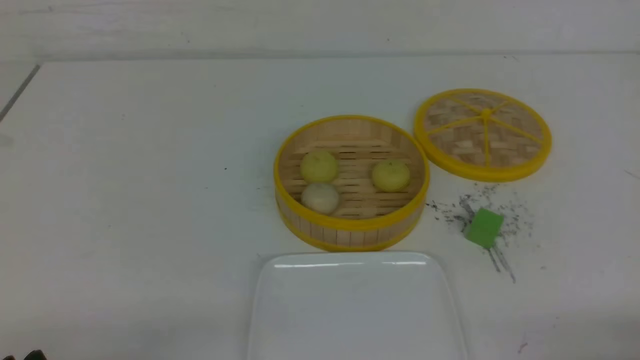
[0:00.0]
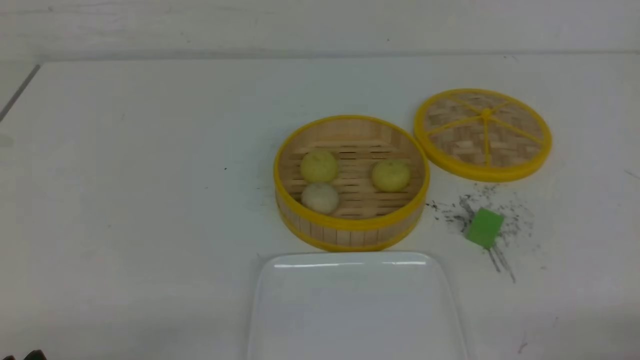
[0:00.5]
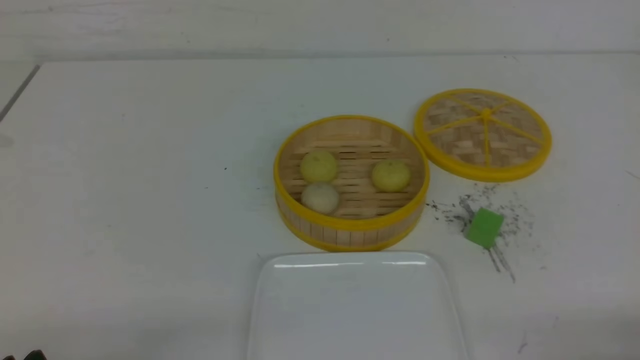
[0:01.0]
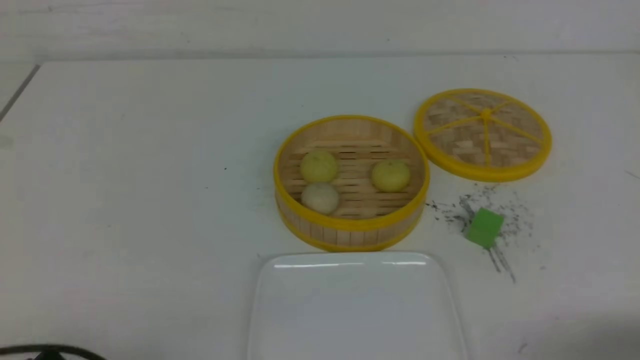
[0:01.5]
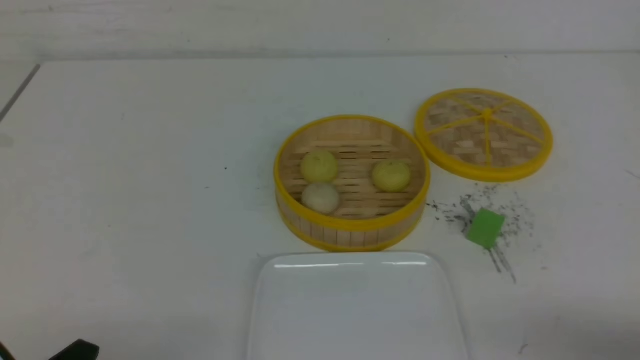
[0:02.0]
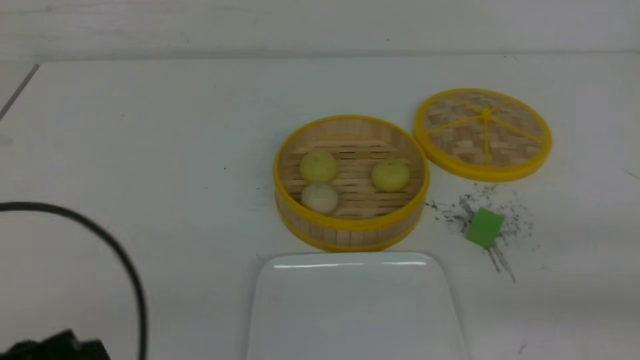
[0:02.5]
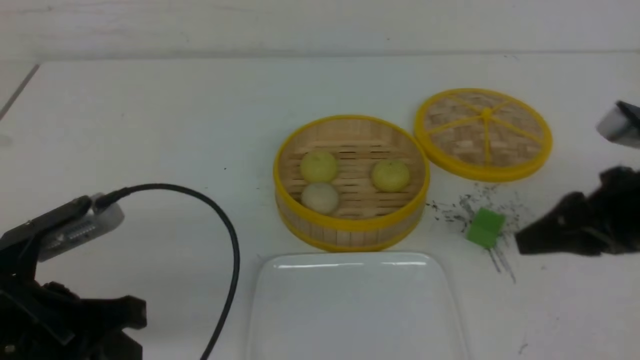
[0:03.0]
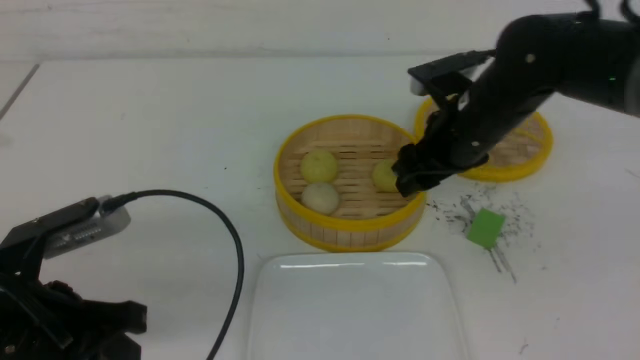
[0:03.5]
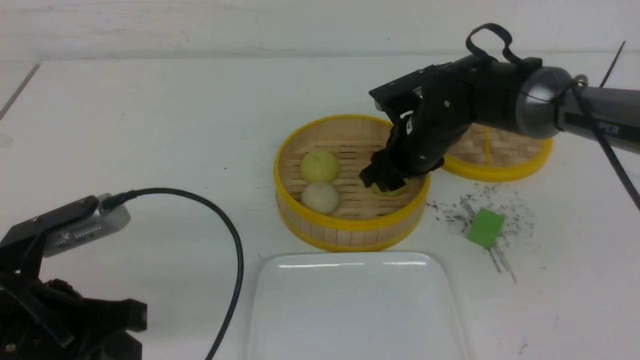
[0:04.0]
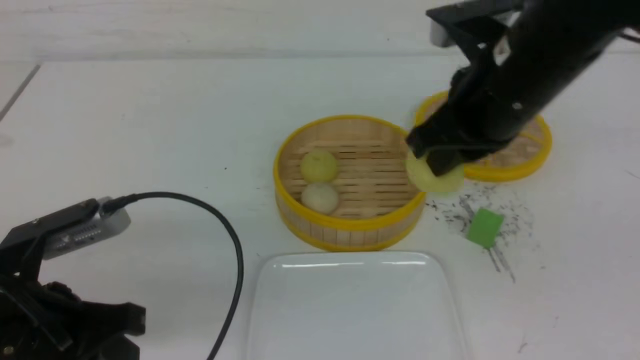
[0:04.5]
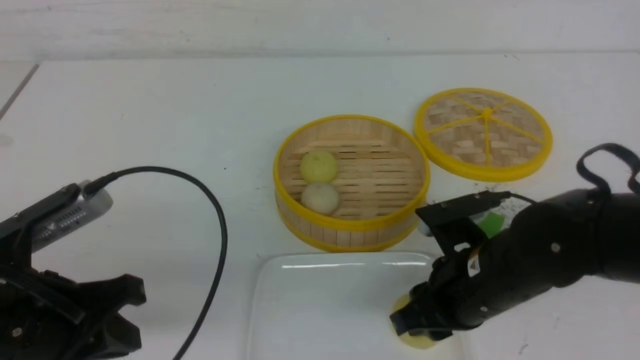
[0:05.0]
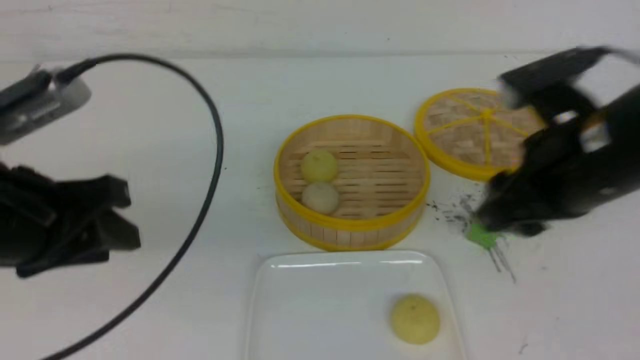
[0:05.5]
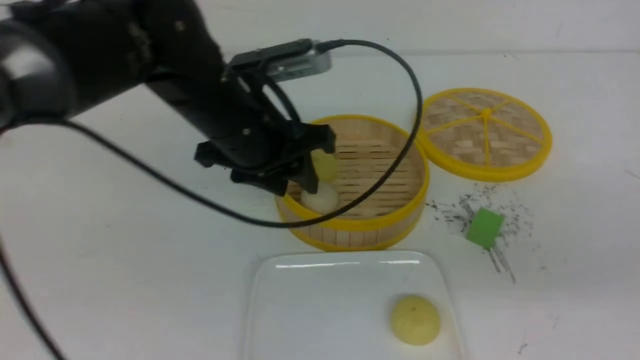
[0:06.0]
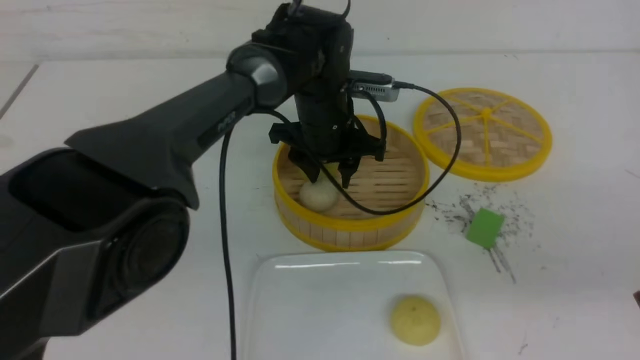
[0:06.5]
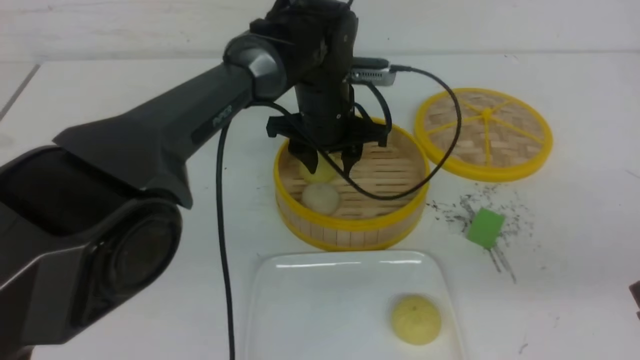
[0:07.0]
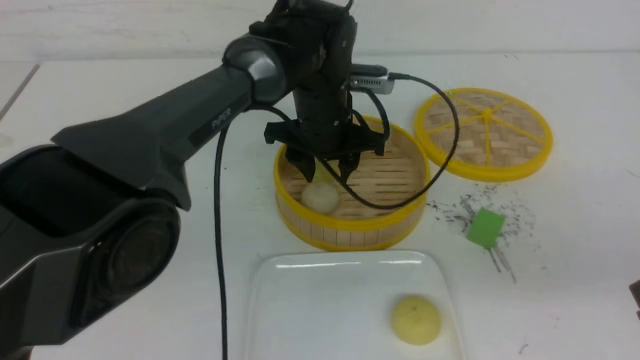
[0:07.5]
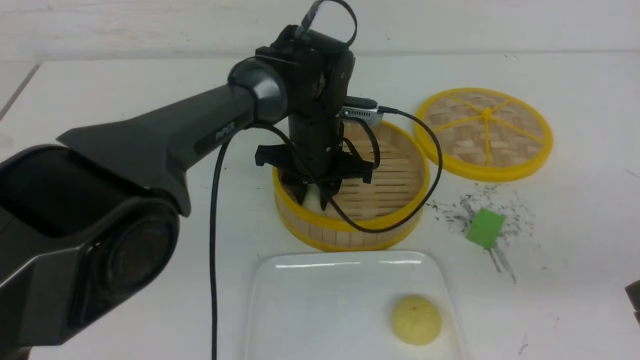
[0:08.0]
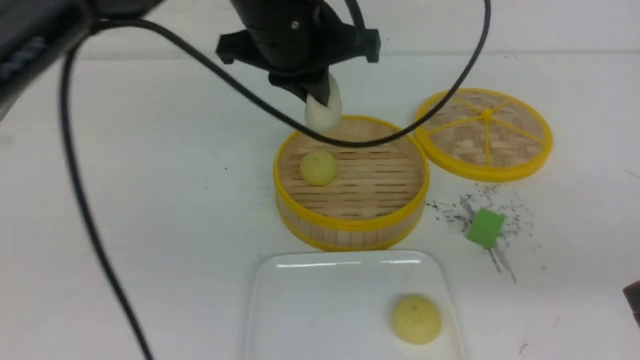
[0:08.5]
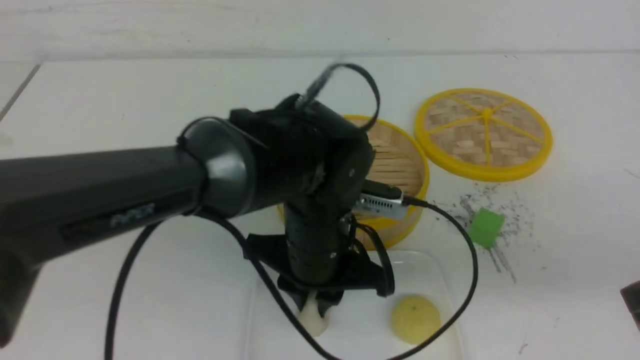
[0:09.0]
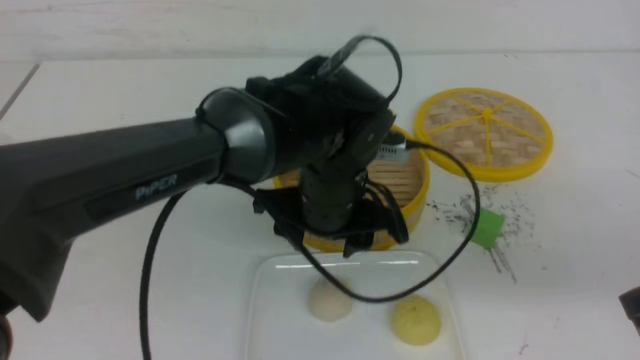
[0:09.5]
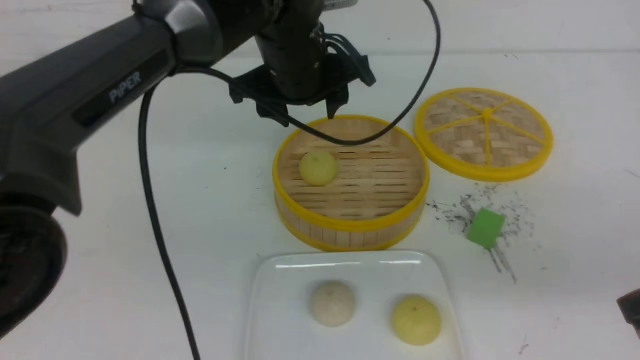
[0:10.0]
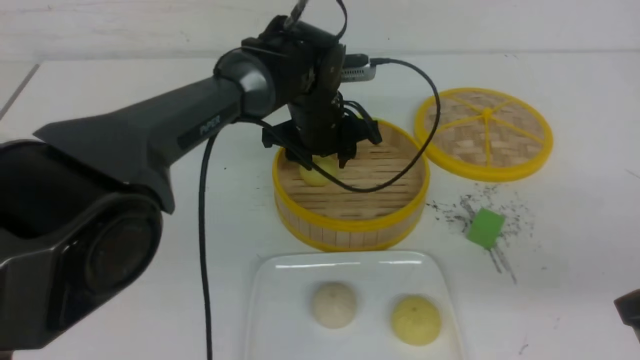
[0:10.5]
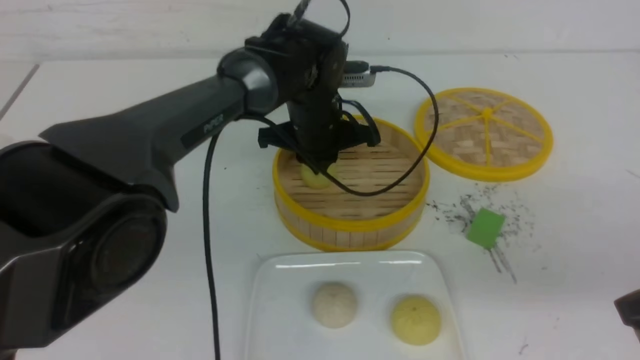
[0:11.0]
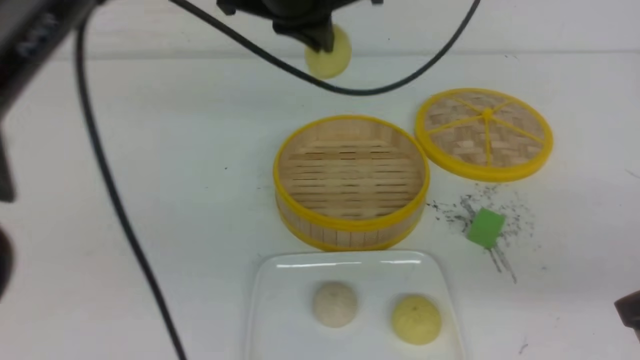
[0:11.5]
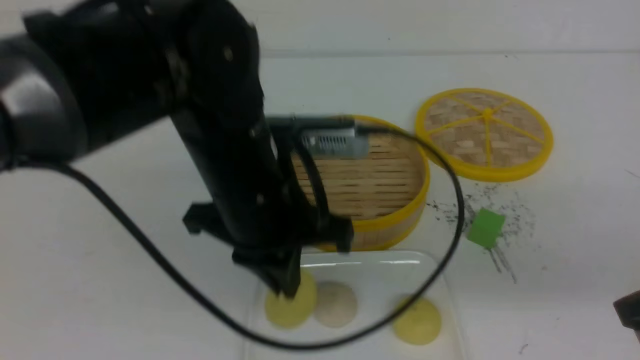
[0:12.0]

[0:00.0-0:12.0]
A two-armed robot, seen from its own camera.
Step, 0:00.0 to 0:04.0: use the right arm to grab the steamed stuffed bun that is closest to it.
Step, 0:04.5 to 0:05.0: use the right arm to put the steamed stuffed bun into the plate.
Step, 0:05.5 to 0:07.5: use the left arm to grab the steamed stuffed bun that is closest to it.
Step, 0:08.0 to 0:09.0: use the left arm to put the steamed stuffed bun into the plate.
Step, 0:09.5 to 0:10.5: use the left arm to grab the steamed stuffed bun that is closest to it.
0:02.0 to 0:04.0: The right gripper shifts approximately 40 cm forward and to the left, and opens and closes again. Meanwhile the left gripper goes about 10 cm forward and upward.
0:04.0 to 0:06.0: The left gripper travels forward and to the right by about 25 cm, and opens up, while the right gripper goes approximately 30 cm backward and to the right, and closes.
0:06.0 to 0:08.0: The left gripper heads downward, forward and to the right, covering approximately 10 cm.
0:08.0 to 0:10.0: The left gripper travels upward by some 10 cm, moves roughly 15 cm backward and comes back, and opens its fingers.
0:10.0 to 0:12.0: The left gripper shifts some 15 cm backward, and closes.

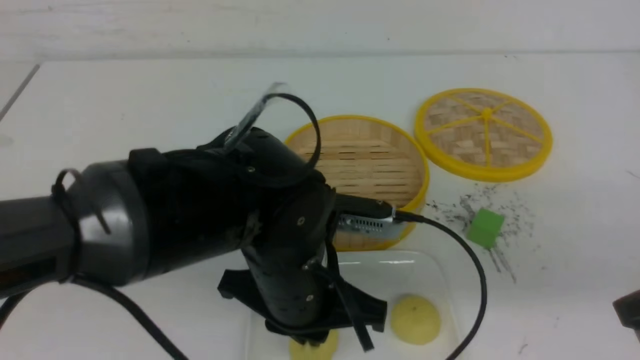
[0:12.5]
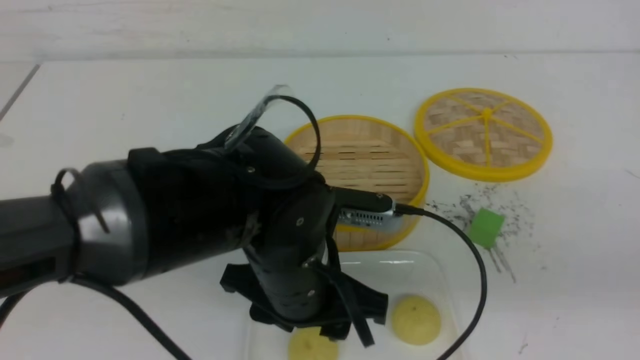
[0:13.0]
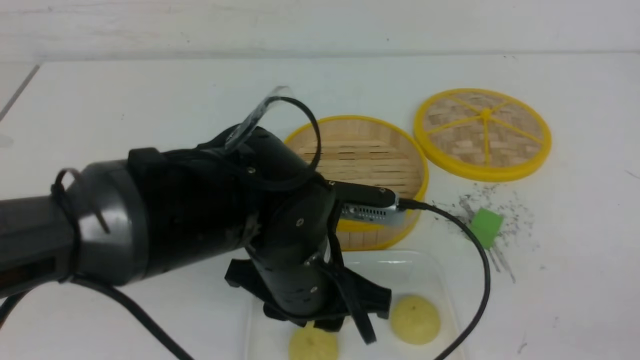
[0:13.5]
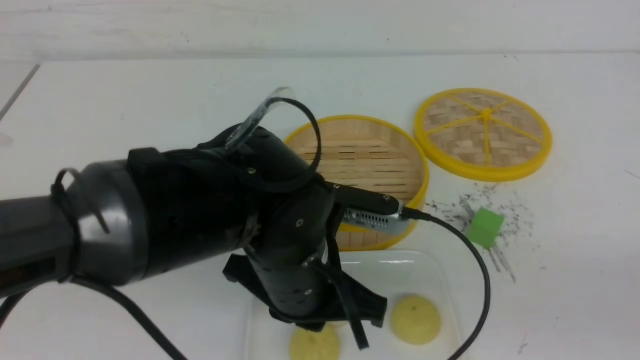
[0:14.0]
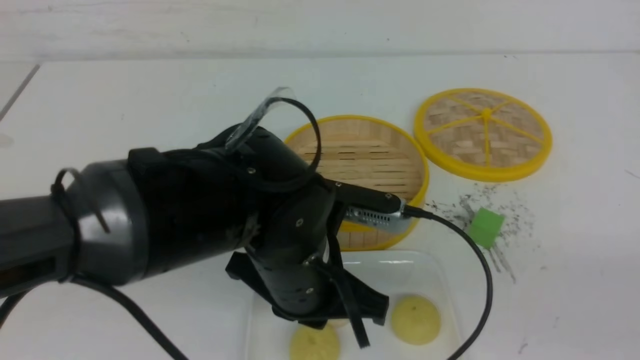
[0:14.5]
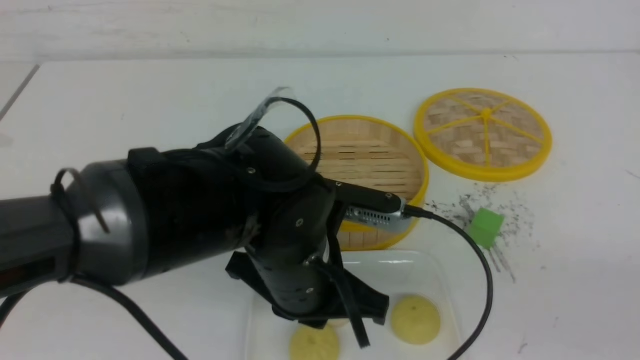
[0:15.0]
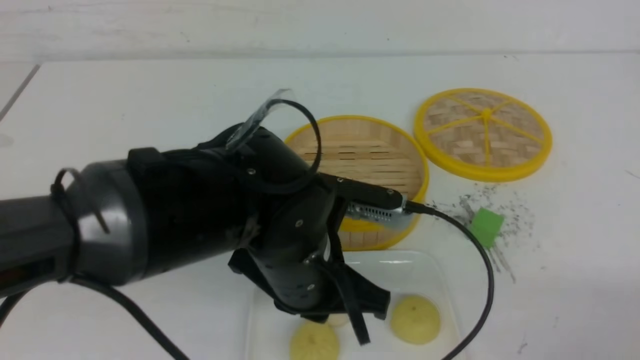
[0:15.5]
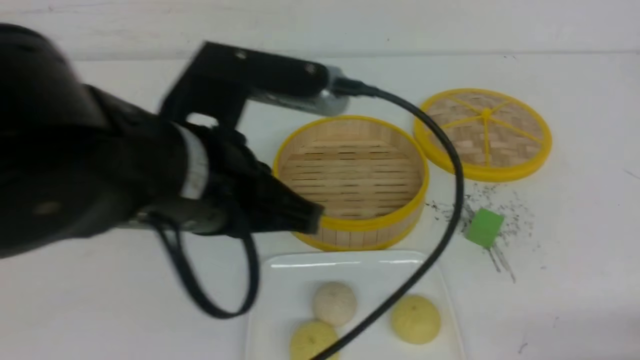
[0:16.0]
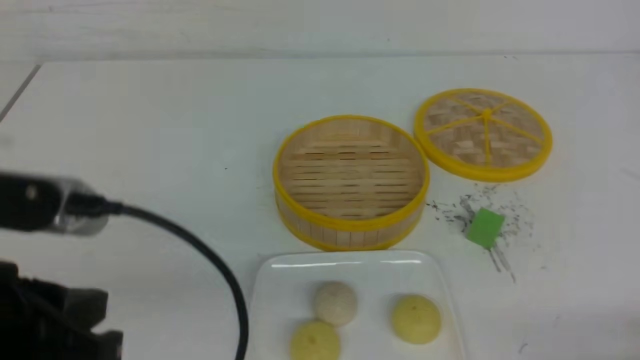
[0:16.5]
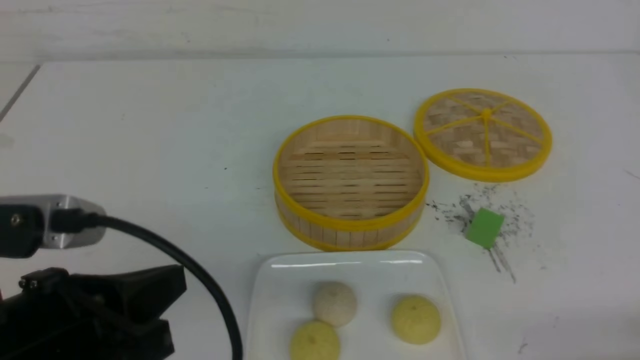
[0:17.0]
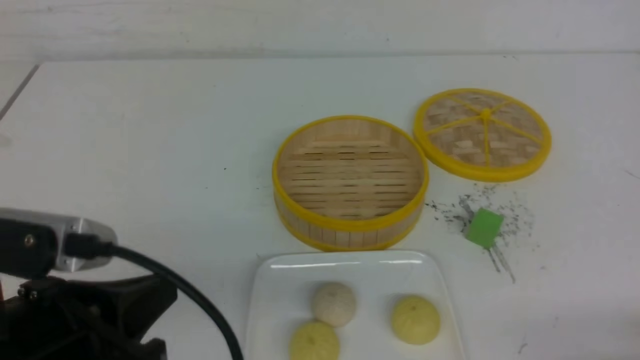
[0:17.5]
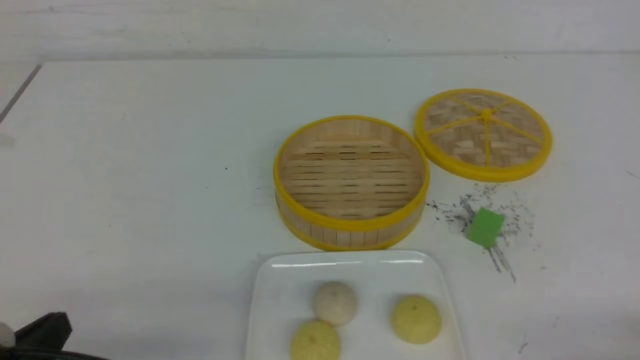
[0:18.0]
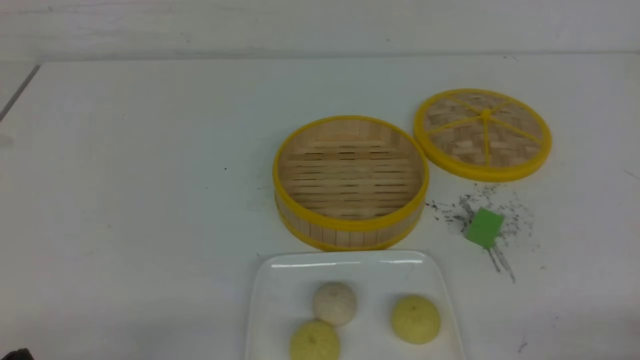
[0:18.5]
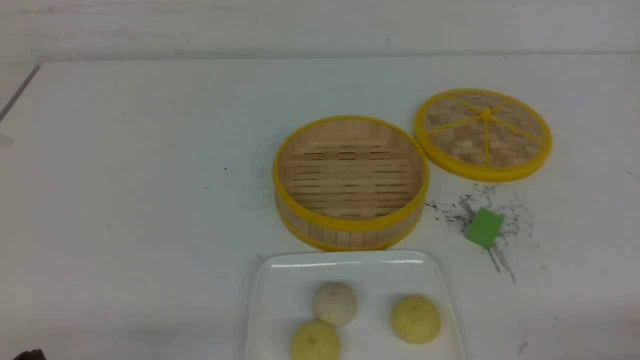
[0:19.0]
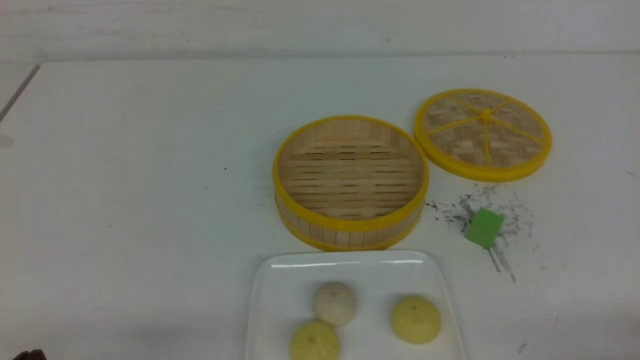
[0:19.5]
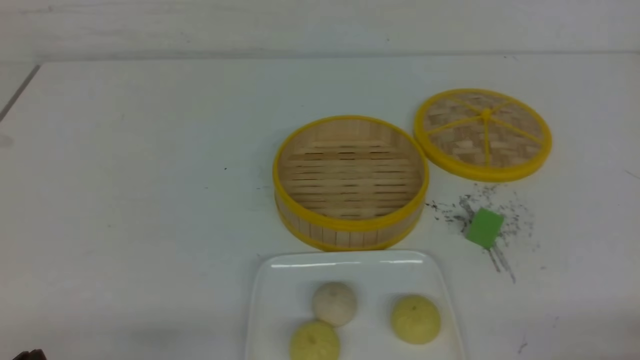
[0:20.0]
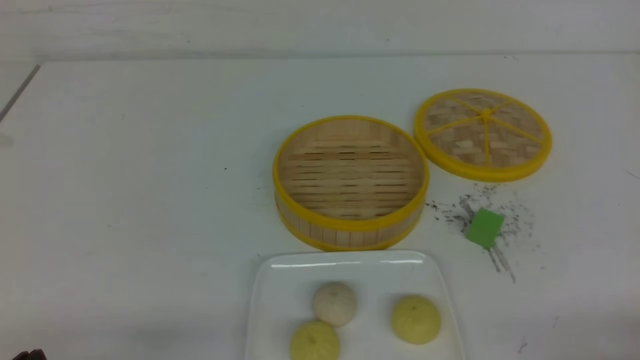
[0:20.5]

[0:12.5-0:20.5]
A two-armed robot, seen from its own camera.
0:12.5 to 0:14.5: The right gripper goes about 15 cm backward and to the right; the left gripper opens and closes again.
0:14.5 to 0:16.5: The right gripper goes some 15 cm downward. The left gripper shifts approximately 20 cm to the left, backward and upward.
0:16.5 to 0:18.5: The left gripper moves downward and to the left, about 15 cm.
0:18.5 to 0:20.5: The two grippers keep their place.
